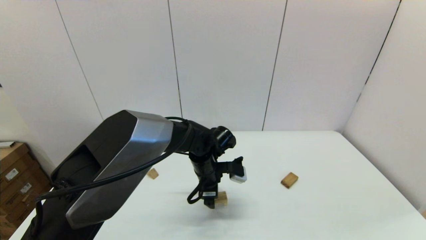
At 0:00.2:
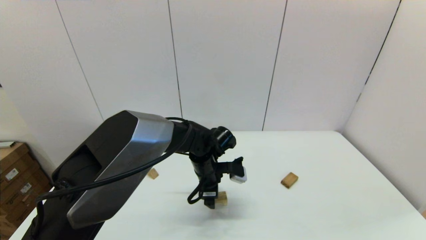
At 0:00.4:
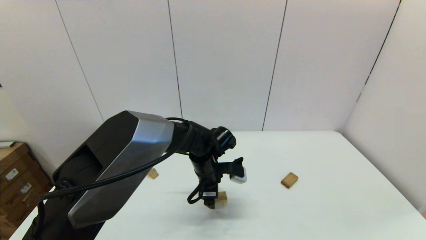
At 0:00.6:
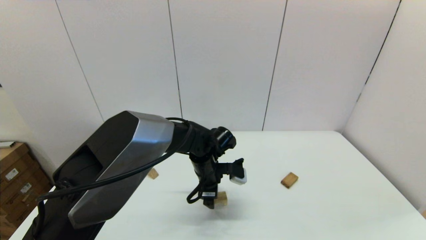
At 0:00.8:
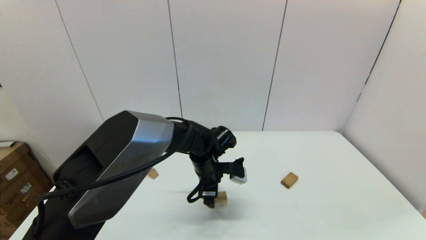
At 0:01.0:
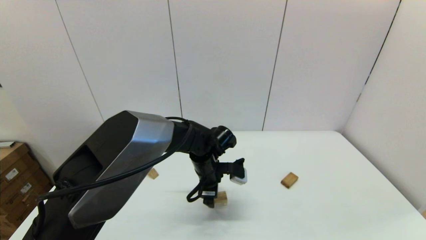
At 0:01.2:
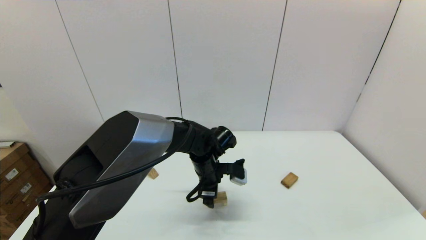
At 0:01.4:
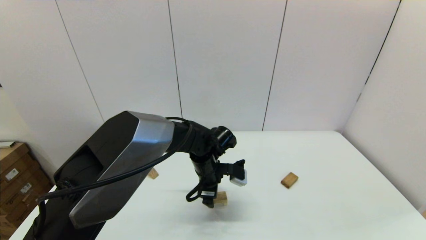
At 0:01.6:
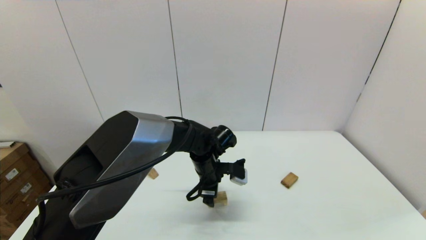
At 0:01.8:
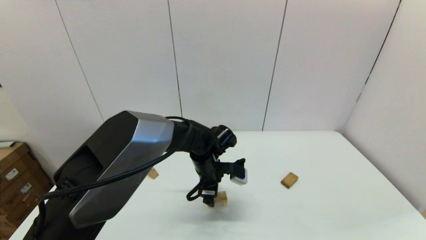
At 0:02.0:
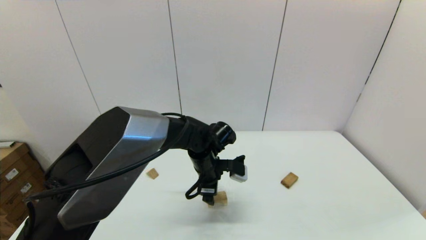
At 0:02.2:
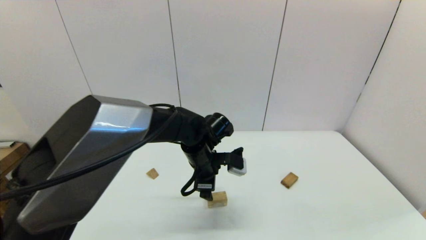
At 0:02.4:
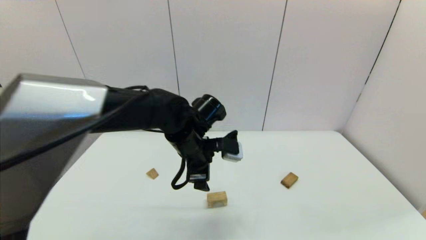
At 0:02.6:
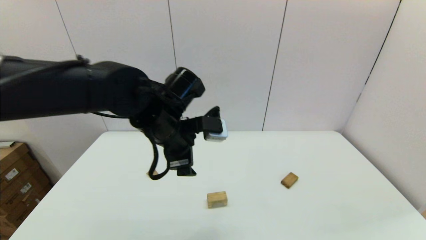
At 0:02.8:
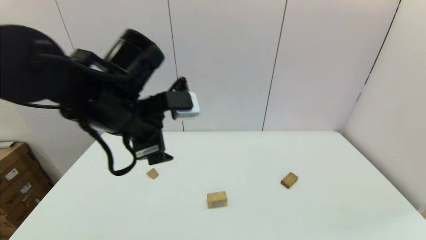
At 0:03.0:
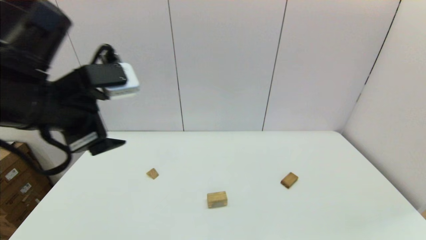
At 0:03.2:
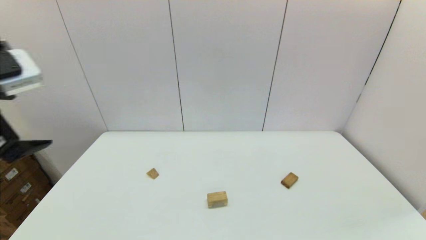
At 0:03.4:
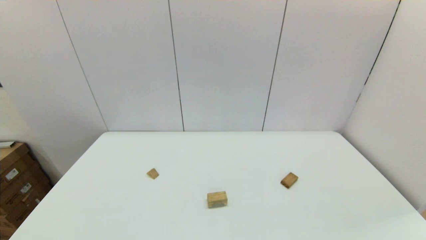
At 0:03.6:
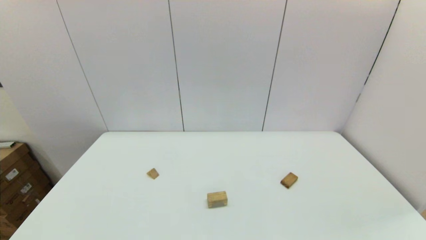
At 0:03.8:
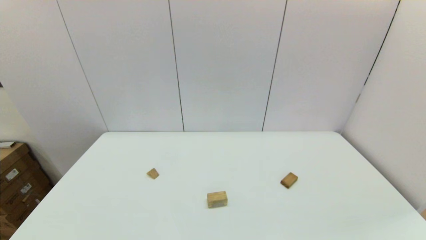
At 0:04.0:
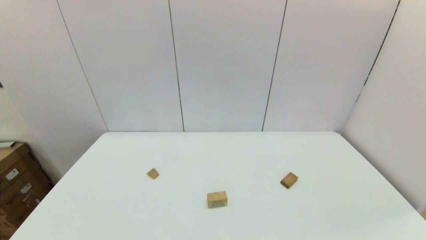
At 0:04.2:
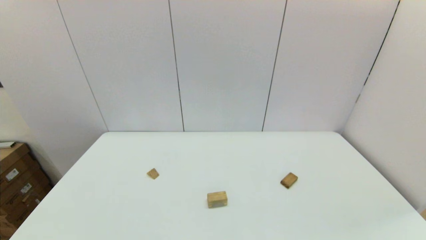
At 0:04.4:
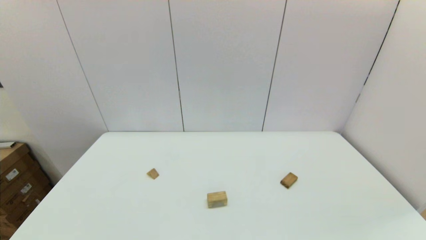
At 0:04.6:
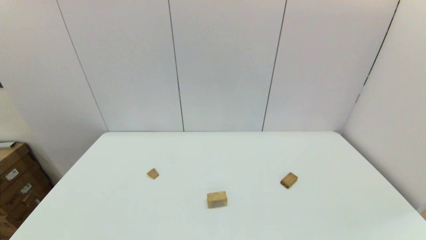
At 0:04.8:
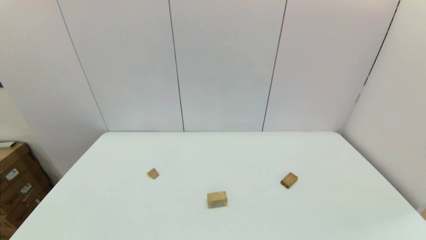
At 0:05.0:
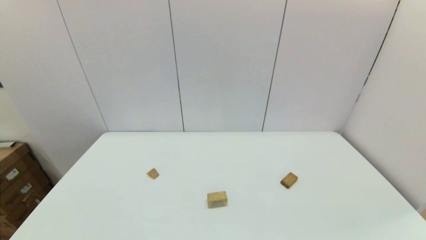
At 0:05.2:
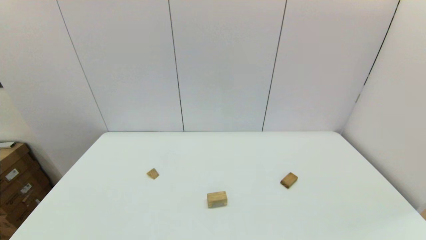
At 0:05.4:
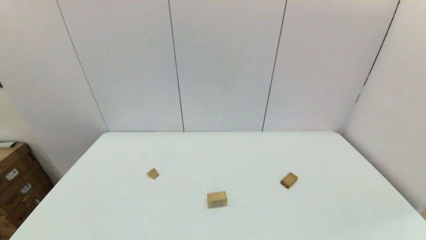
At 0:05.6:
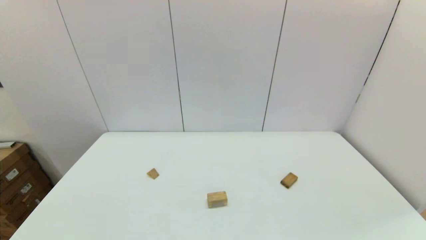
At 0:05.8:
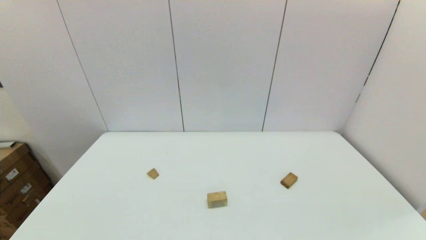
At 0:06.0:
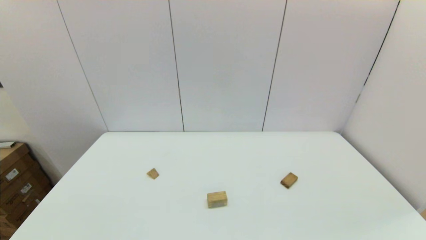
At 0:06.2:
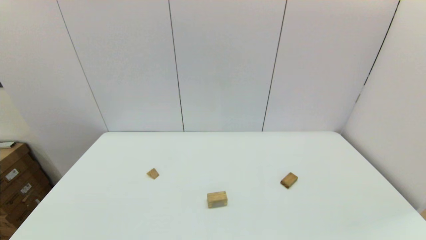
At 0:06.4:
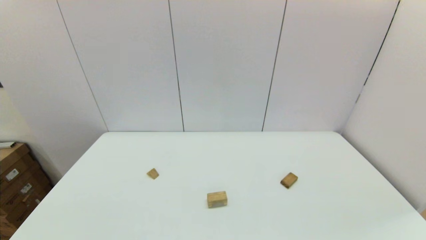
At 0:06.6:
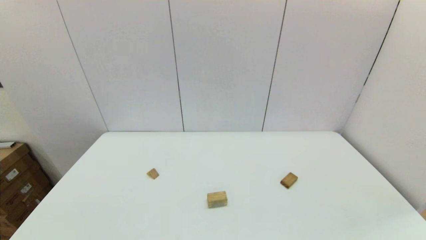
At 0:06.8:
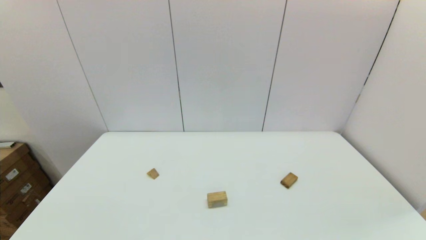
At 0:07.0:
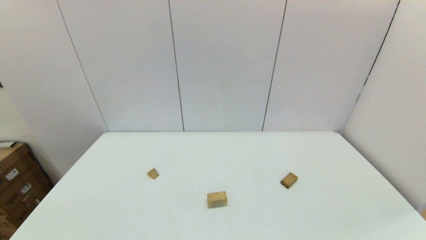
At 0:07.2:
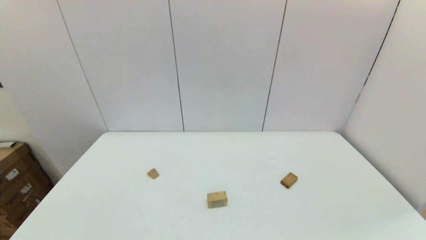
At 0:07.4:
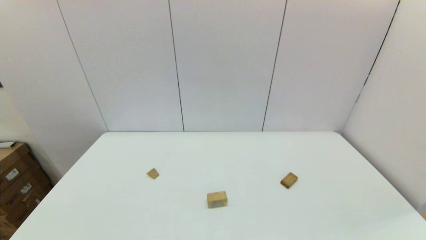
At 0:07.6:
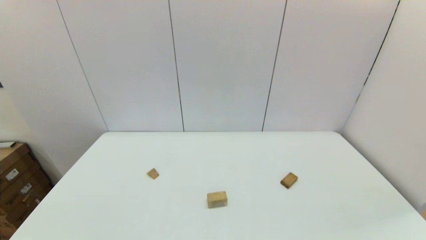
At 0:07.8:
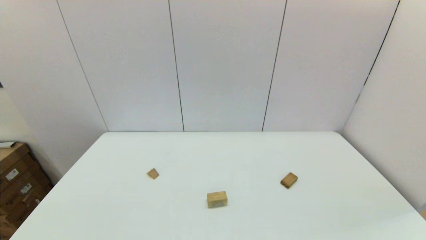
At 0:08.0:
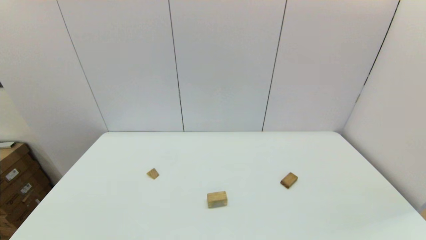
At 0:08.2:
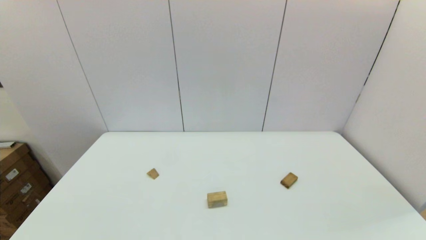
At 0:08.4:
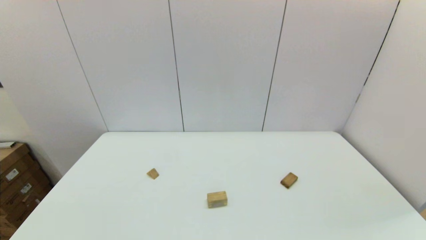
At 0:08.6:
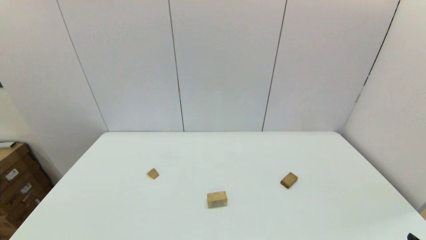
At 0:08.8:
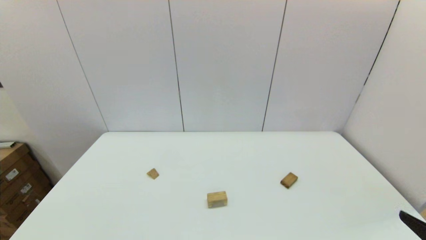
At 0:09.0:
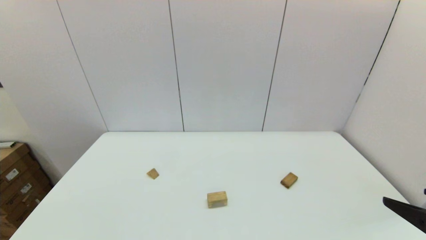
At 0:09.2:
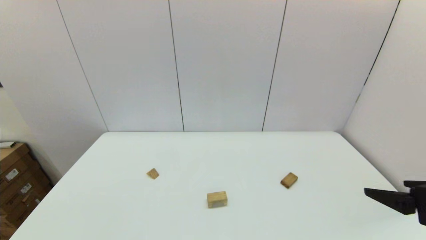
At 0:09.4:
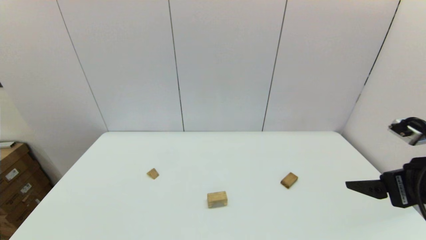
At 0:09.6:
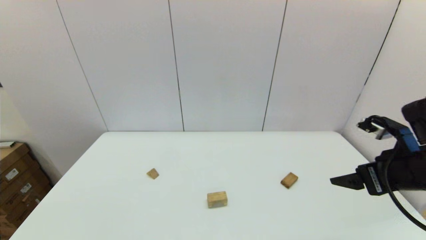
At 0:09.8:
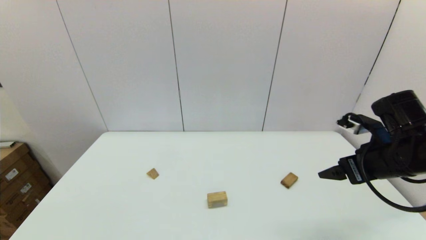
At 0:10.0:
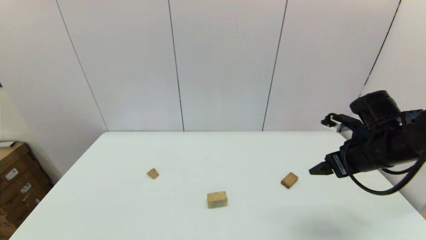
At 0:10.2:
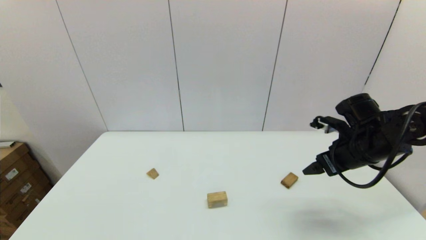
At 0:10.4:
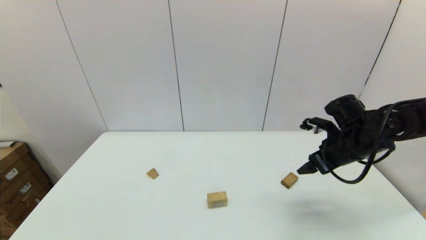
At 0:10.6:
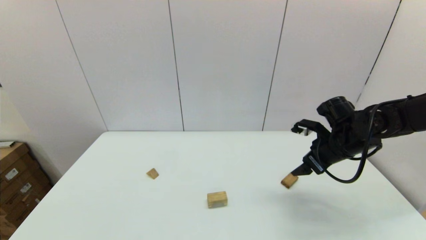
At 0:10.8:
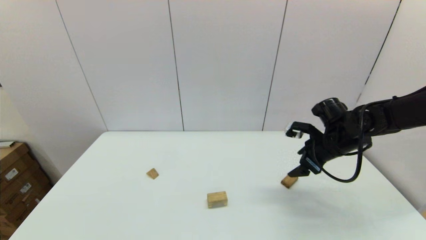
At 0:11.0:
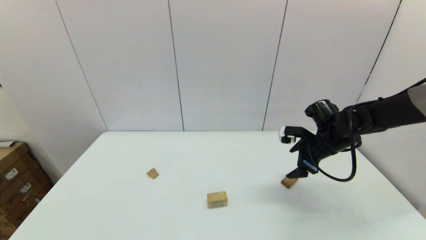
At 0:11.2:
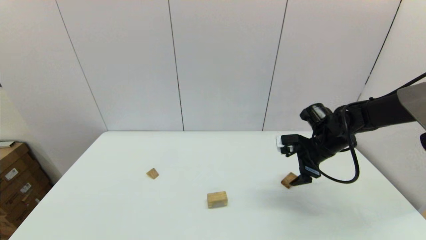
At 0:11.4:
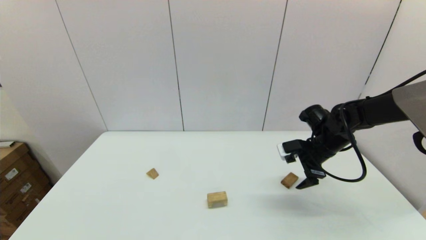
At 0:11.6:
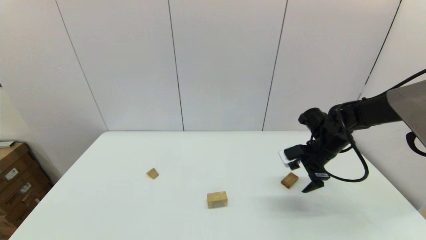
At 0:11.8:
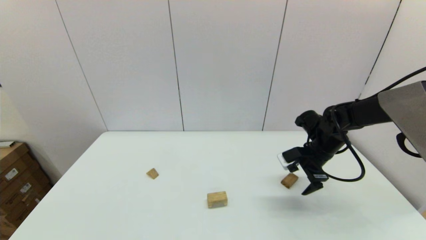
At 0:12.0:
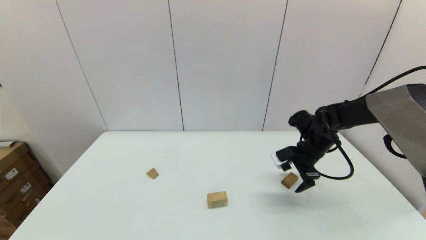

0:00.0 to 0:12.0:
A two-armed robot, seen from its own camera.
Task of the whole recording: place the arched building blocks in the center of the table, set up the rectangular building blocks, and then set up the triangular building blocks.
0:00.0 to 0:01.6: The grippers stay close to where they were, moving slightly.
0:01.6 to 0:03.0: The left gripper moves upward, to the left and backward, about 35 cm.
0:03.0 to 0:04.4: The left gripper travels backward by about 25 cm.
0:07.6 to 0:09.0: The right gripper is displaced upward and forward by some 15 cm.
0:09.0 to 0:10.4: The right gripper goes roughly 25 cm forward.
0:10.4 to 0:12.0: The right gripper moves forward and downward, some 10 cm.

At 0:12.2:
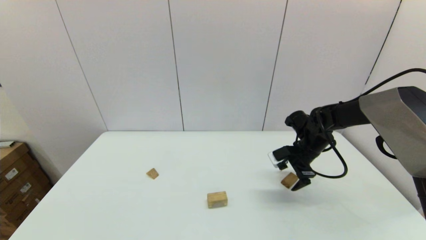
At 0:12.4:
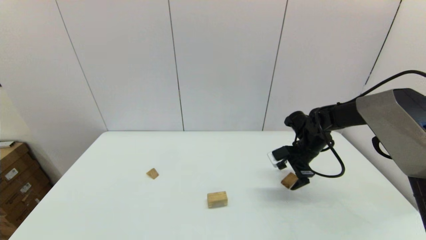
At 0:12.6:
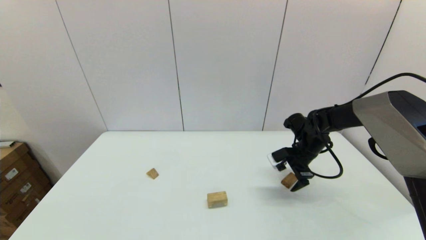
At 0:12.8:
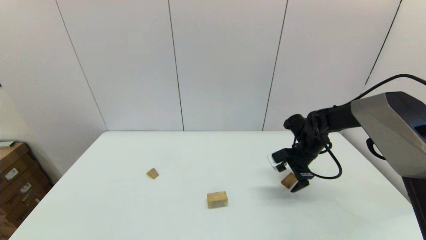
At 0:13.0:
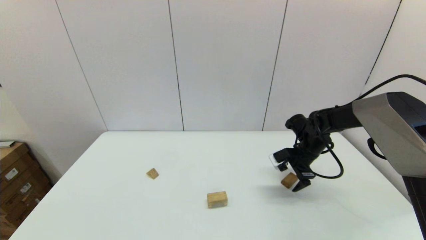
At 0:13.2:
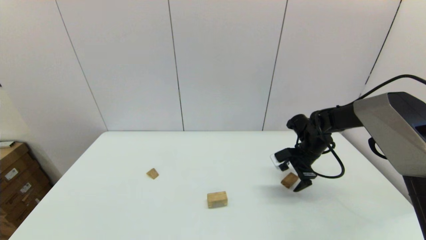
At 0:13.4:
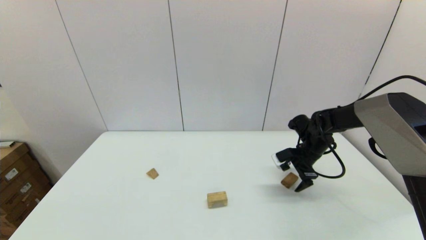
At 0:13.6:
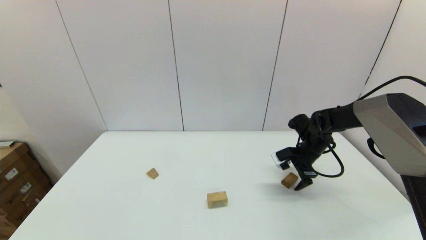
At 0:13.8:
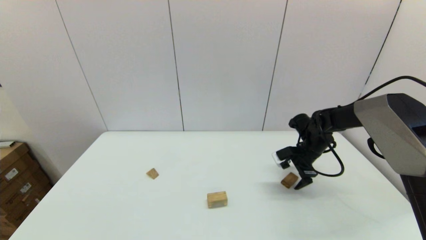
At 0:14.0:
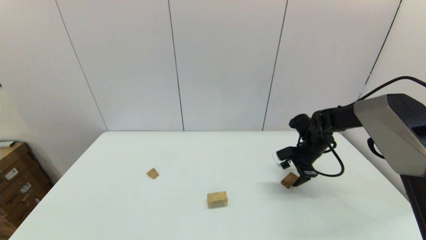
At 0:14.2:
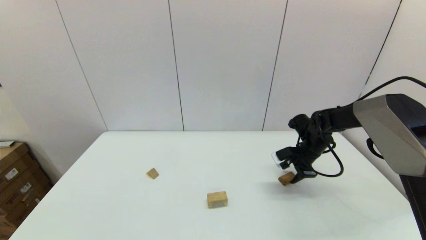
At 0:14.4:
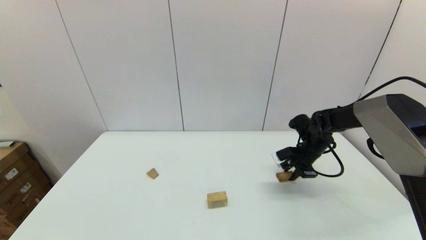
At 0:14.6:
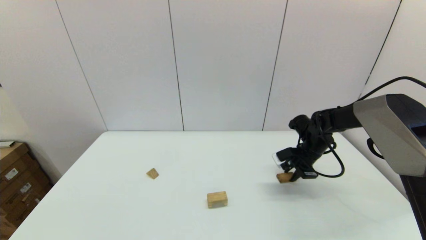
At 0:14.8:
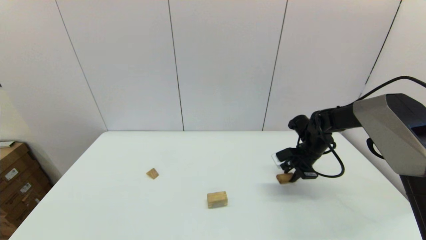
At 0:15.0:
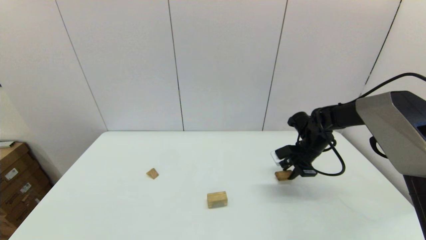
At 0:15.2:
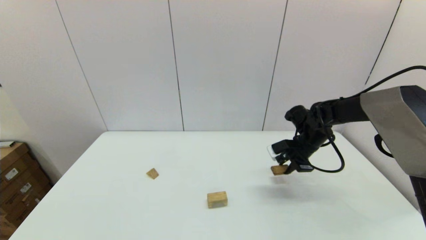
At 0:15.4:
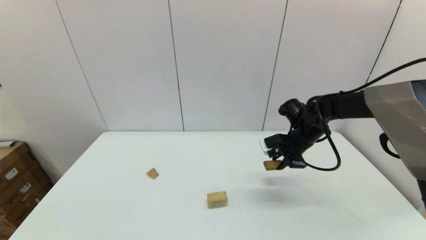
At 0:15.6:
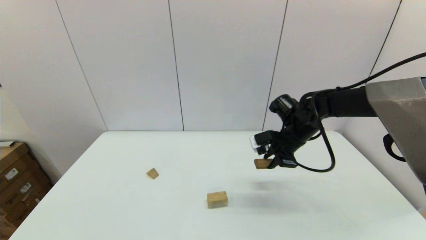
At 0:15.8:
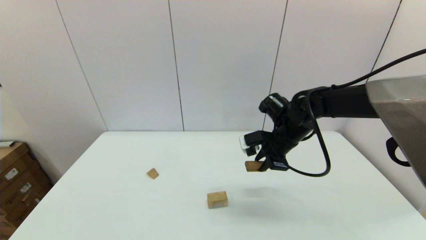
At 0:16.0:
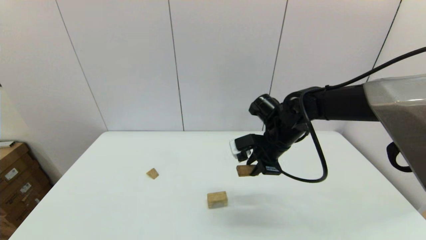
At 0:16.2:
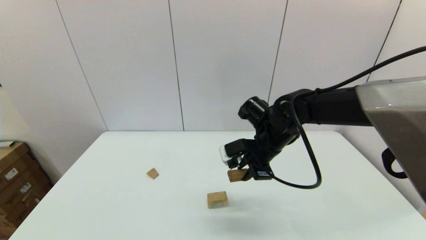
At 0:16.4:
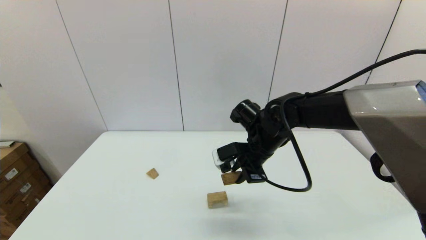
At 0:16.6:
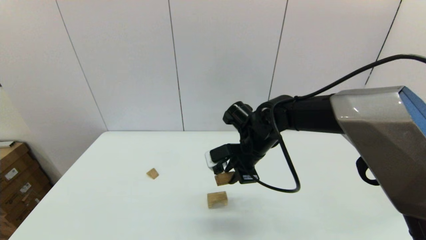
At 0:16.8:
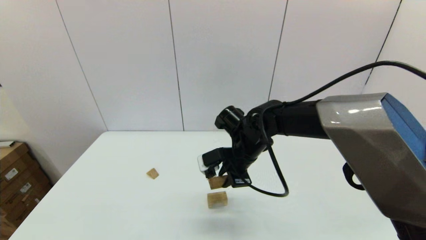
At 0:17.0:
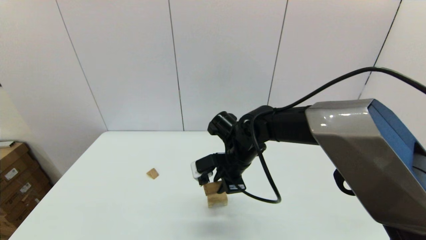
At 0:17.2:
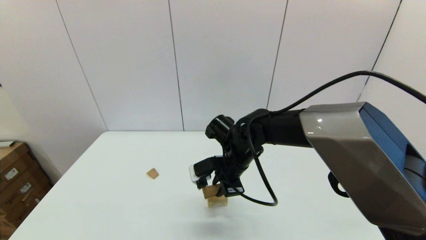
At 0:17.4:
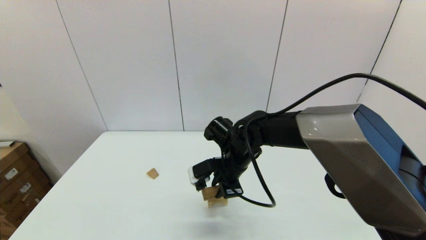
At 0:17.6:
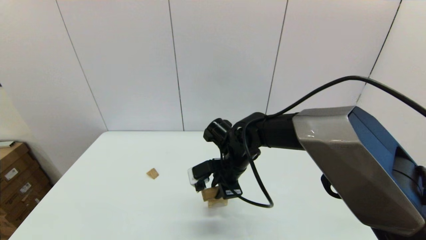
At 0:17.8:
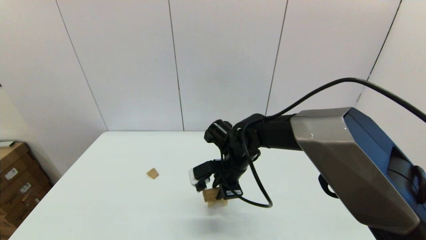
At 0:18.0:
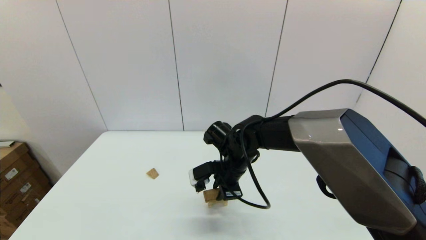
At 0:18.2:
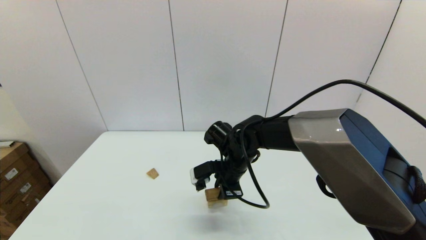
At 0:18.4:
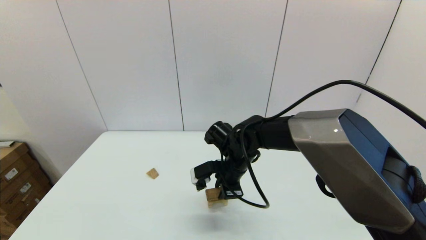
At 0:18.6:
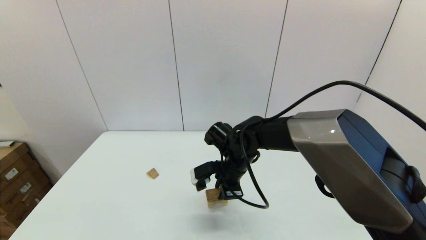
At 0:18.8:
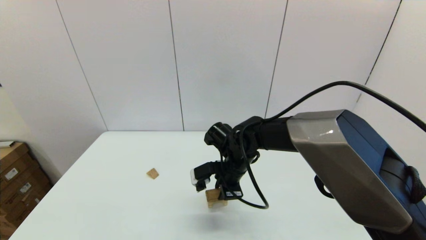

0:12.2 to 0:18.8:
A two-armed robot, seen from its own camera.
Task of the whole recording: place the arched building blocks in the center of the table, set up the rectangular building blocks, and then set up the triangular building blocks.
Step, 0:12.2 to 0:14.4: Grasp the box-shaped block with the right gripper.
0:12.2 to 0:13.8: The grippers make only small movements.
0:13.8 to 0:15.4: The right gripper is displaced upward and to the left by about 10 cm, and closes up.
0:15.4 to 0:17.2: The right gripper shifts roughly 20 cm to the left.
0:17.2 to 0:18.8: There are only small adjustments of the grippers.
